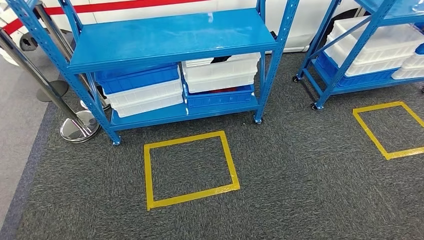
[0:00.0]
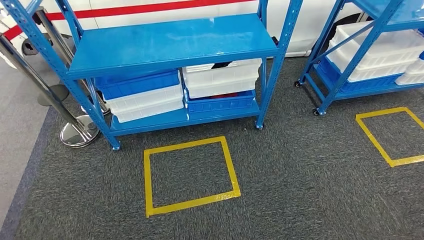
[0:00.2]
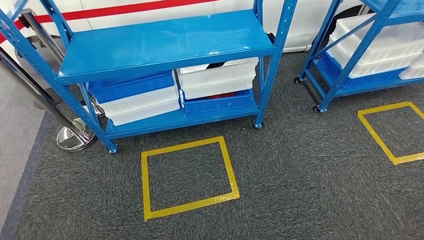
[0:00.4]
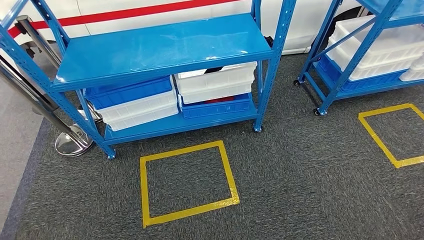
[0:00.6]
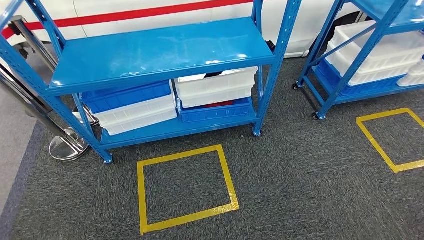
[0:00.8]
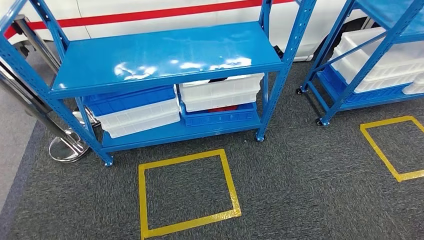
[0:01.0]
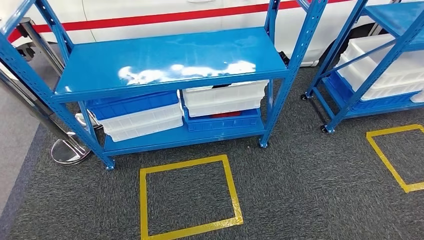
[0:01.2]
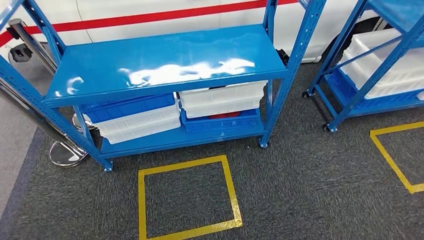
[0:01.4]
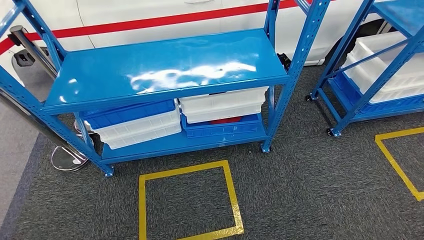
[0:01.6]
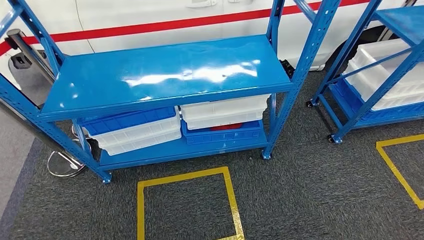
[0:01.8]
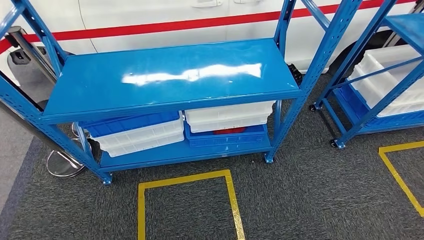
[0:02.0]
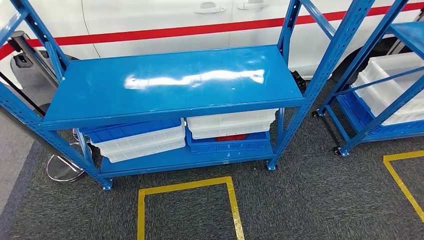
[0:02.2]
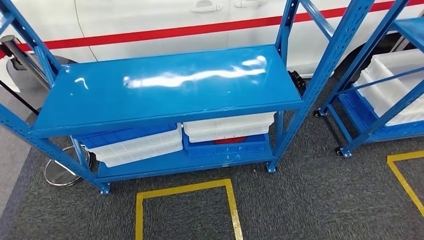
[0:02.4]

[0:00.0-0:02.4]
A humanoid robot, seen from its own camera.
Step, 0:00.0 to 0:02.4: Return to the initial position at the shelf.

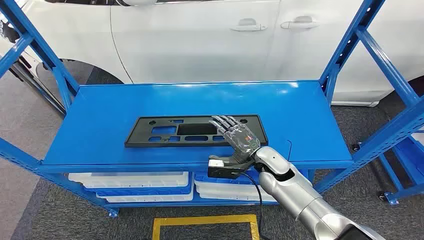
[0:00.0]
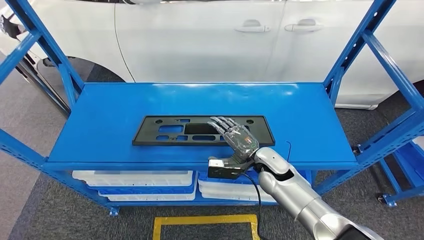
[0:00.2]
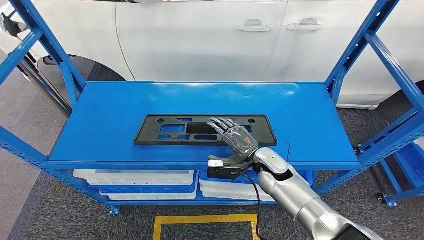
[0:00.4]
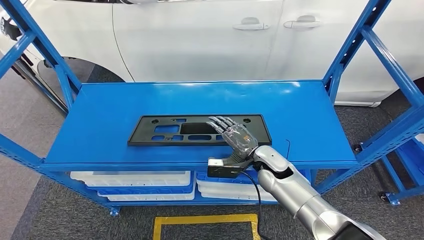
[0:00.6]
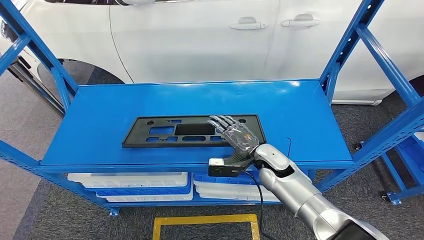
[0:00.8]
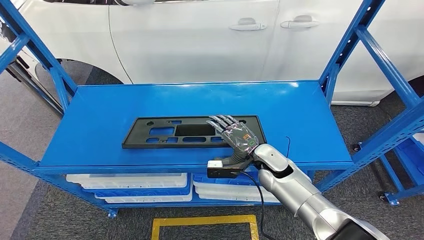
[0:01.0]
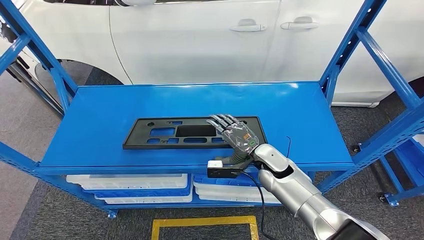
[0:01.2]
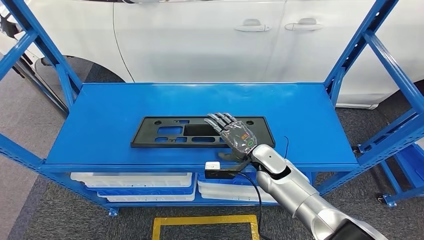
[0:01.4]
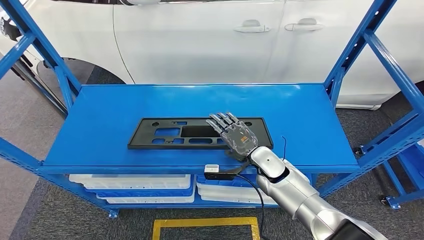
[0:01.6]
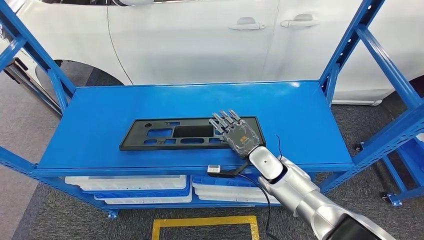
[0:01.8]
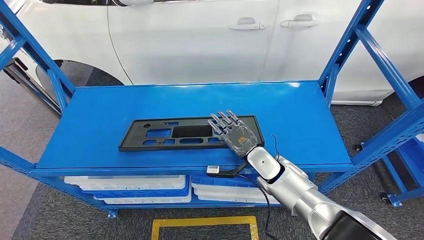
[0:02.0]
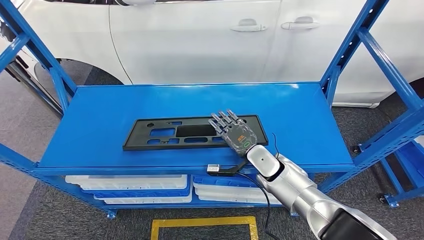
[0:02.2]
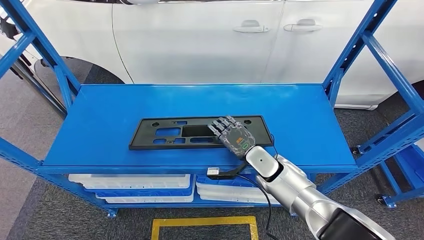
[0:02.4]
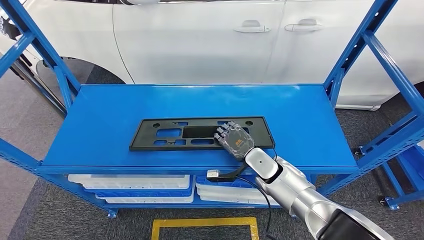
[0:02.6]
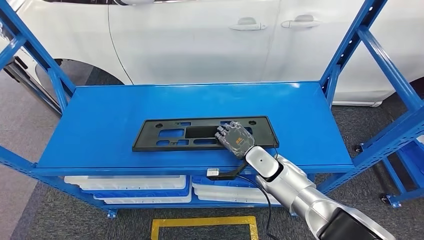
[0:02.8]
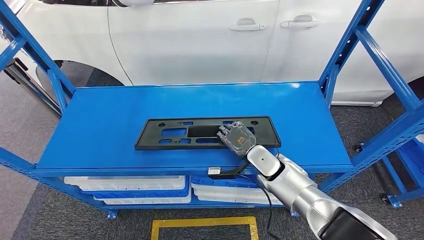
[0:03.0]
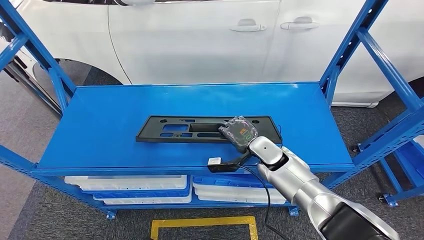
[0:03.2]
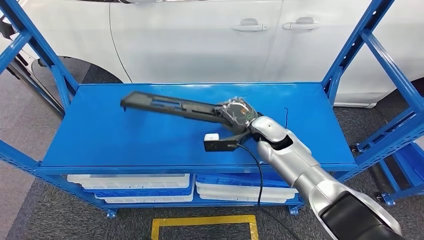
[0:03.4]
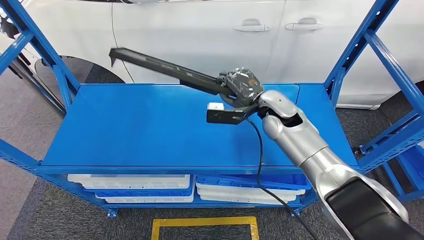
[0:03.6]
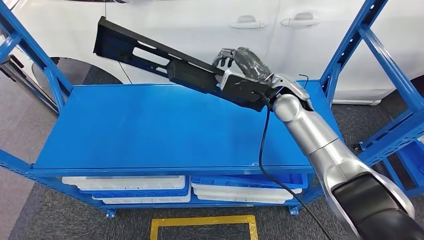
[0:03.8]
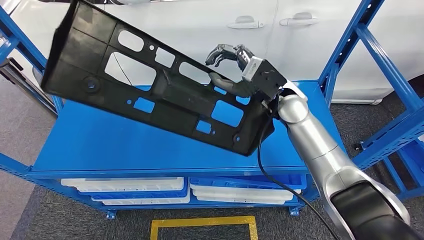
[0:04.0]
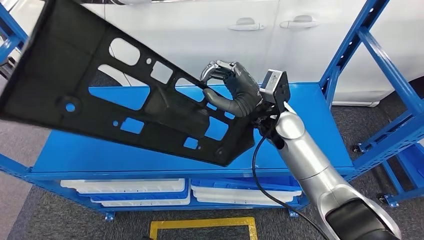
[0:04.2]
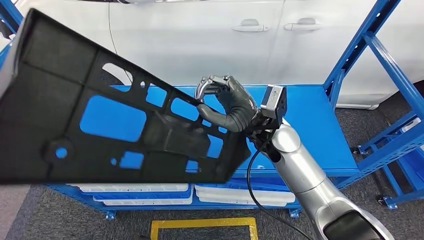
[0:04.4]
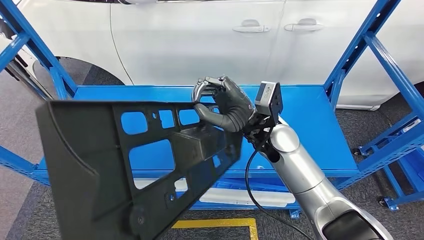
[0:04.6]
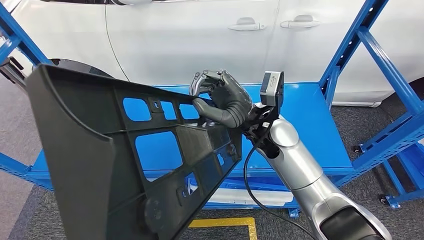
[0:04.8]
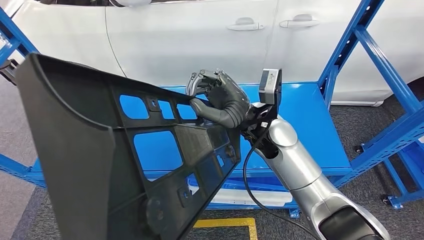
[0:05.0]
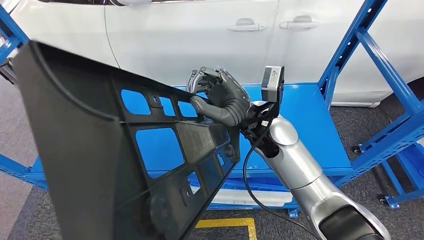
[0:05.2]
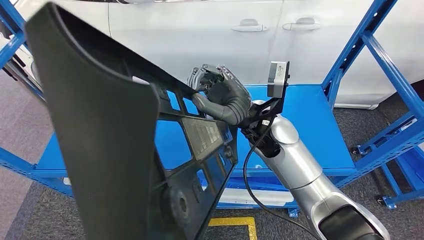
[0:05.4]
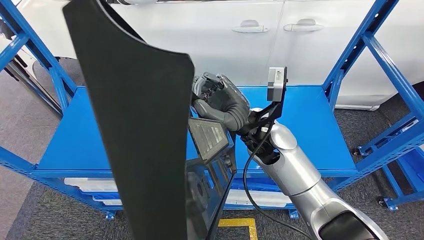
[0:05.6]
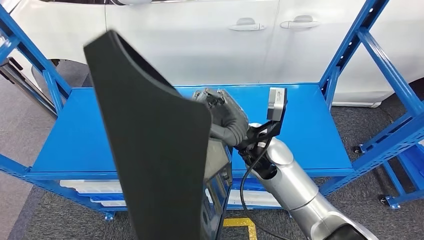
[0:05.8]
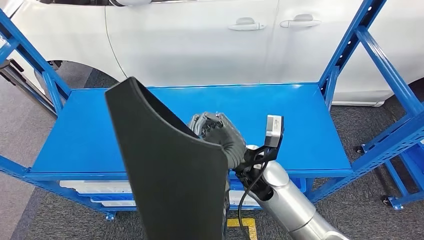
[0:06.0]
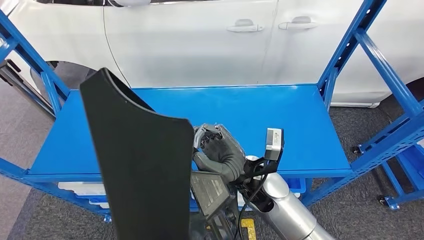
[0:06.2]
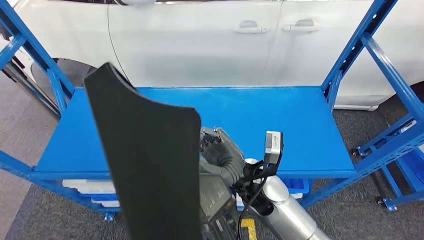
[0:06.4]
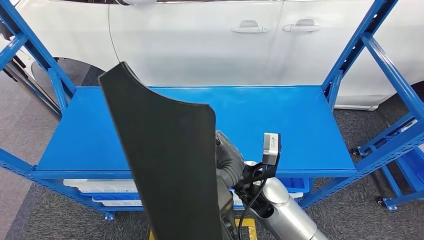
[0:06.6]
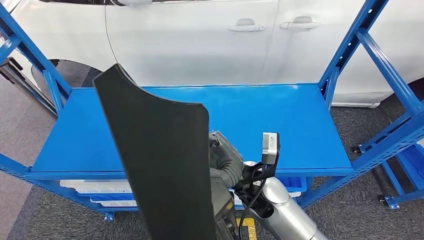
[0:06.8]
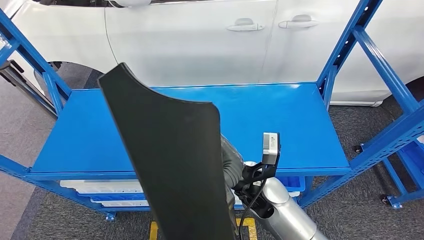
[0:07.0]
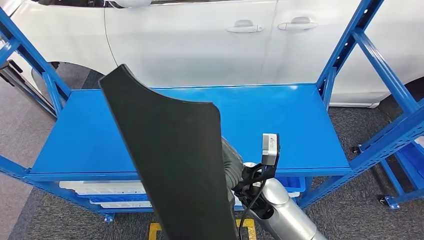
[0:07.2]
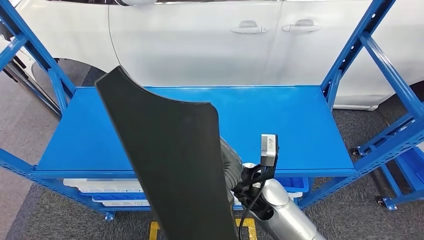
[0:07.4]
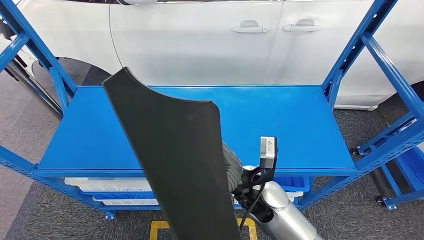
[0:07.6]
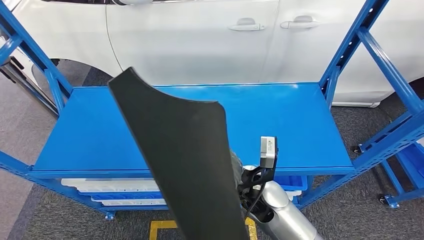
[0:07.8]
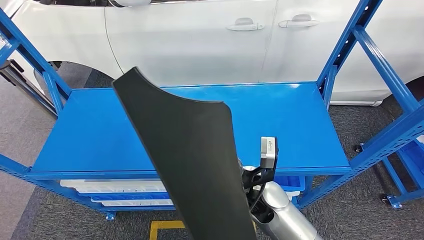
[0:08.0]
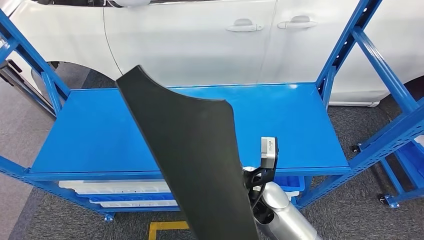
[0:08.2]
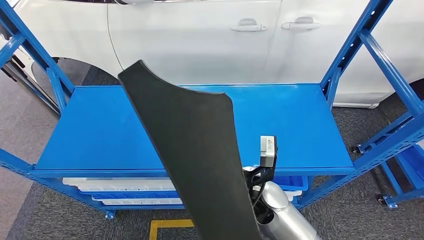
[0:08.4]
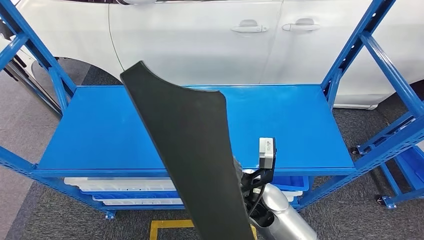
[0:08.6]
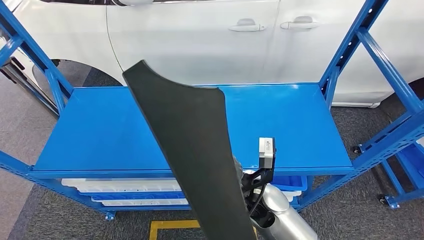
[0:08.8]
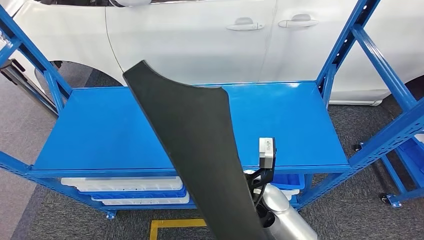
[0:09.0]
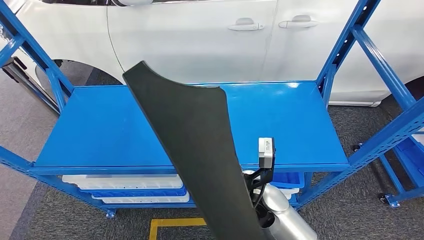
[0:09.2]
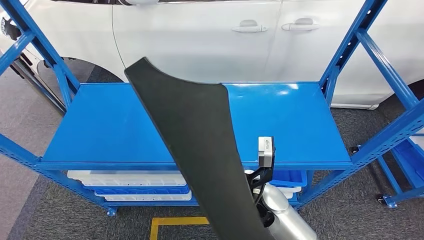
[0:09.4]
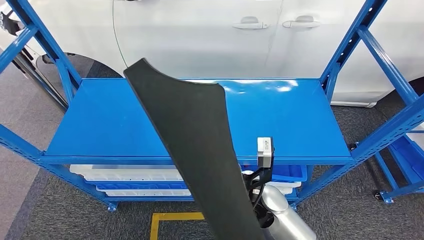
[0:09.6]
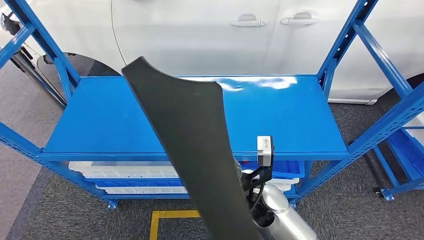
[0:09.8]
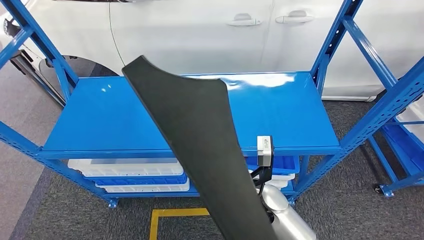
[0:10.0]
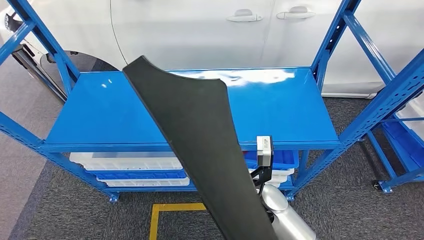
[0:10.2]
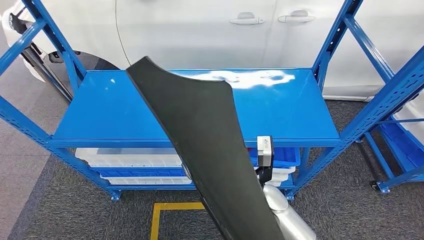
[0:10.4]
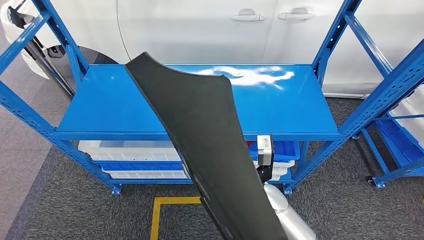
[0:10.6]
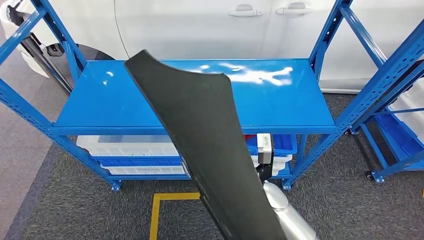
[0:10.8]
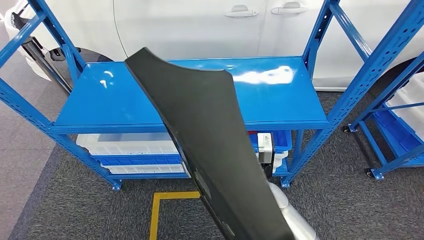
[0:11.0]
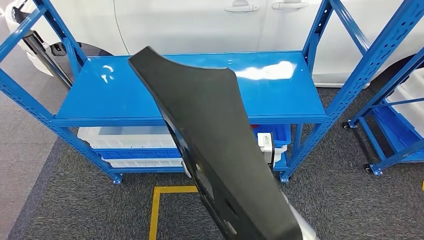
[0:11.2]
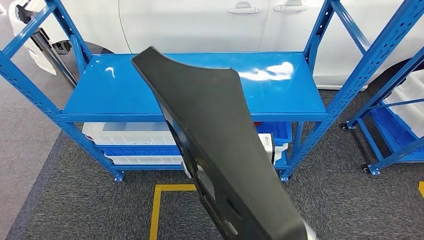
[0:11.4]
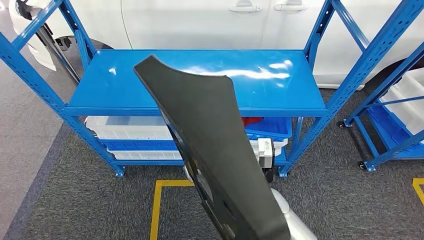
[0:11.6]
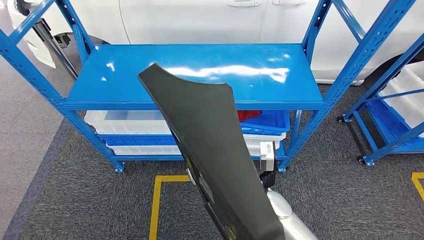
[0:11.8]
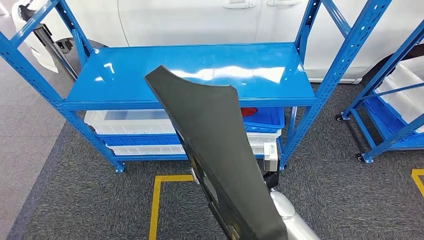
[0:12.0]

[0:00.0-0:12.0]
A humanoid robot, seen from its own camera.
Step, 0:00.0 to 0:04.6: Pick up the large material from the shelf.
0:01.6 to 0:03.0: There are only small adjustments of the hands.

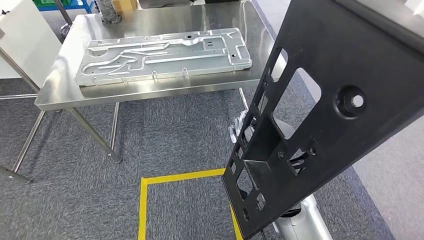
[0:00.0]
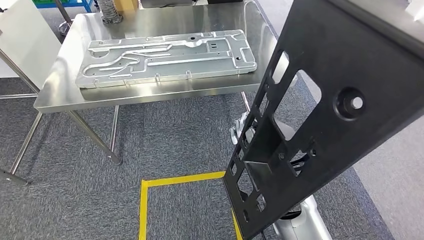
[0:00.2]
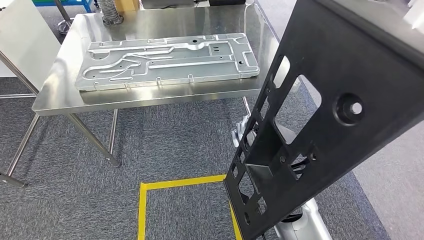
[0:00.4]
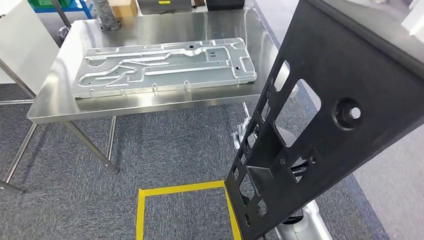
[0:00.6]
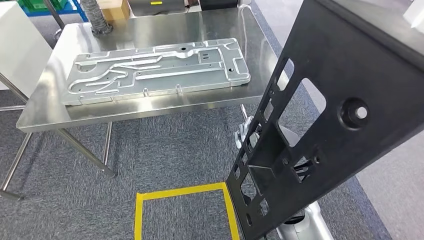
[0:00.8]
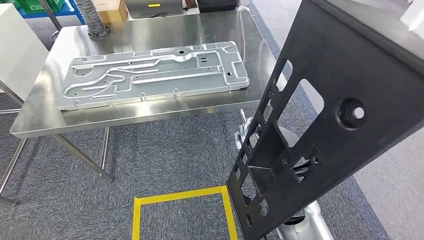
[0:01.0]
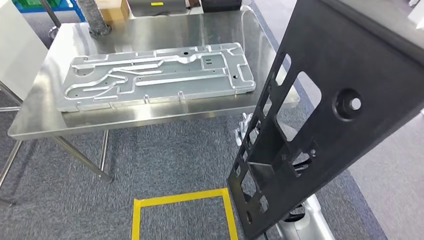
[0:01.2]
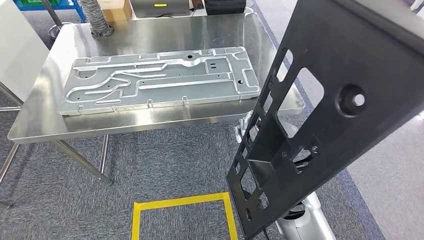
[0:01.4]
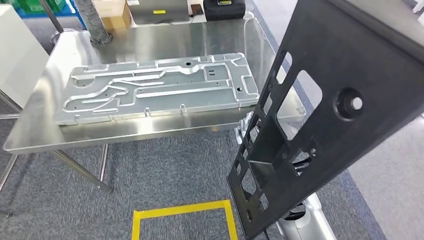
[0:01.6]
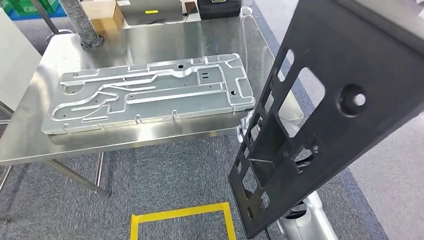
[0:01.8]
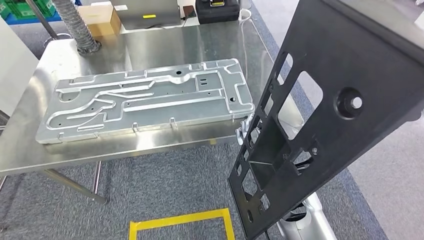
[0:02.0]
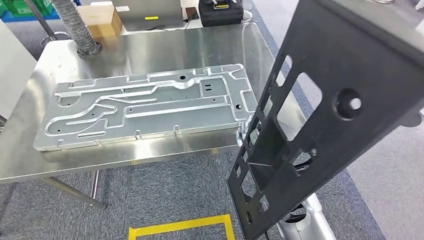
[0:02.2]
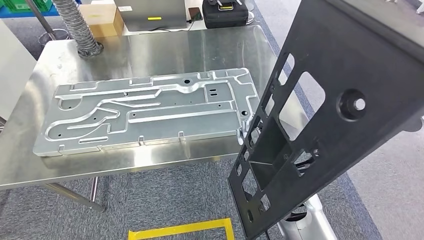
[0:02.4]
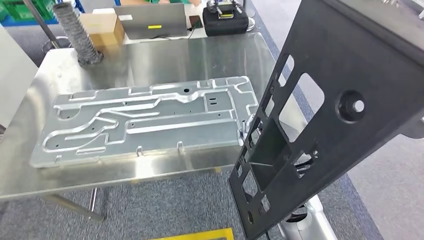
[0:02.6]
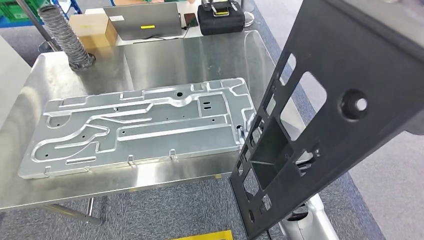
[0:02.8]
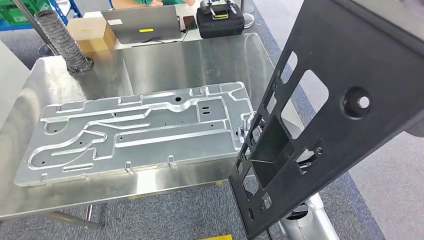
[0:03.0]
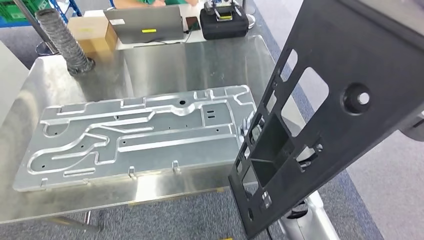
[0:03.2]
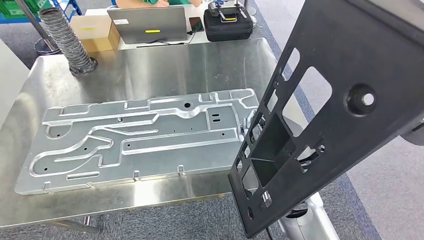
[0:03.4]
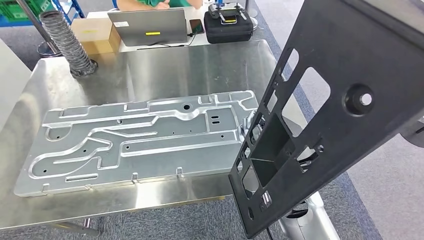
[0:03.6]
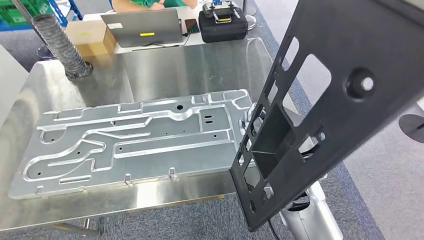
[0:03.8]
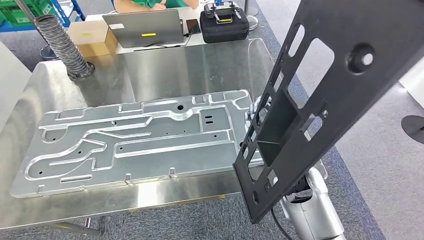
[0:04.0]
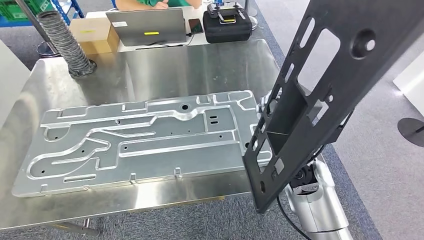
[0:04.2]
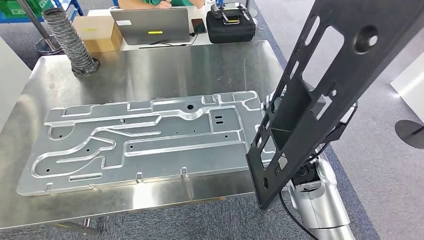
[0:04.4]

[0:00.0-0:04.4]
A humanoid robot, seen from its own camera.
Step, 0:00.0 to 0:02.0: Move the large material to the workbench.
